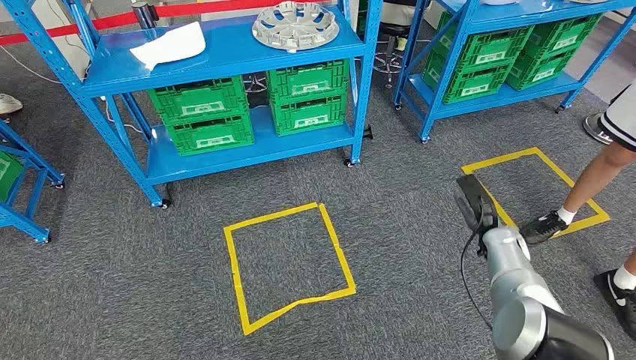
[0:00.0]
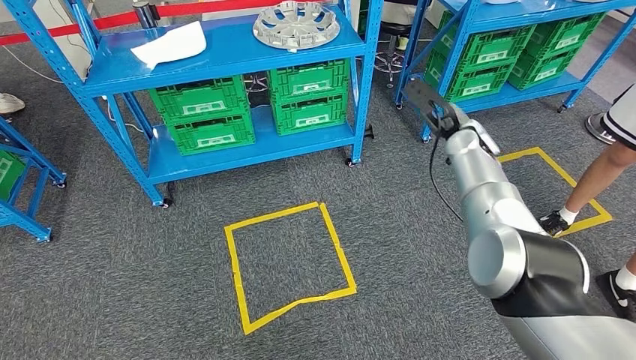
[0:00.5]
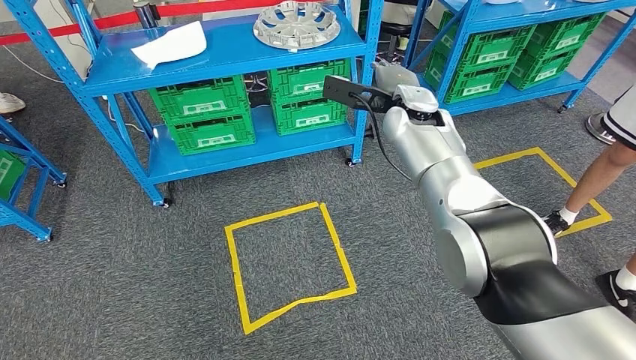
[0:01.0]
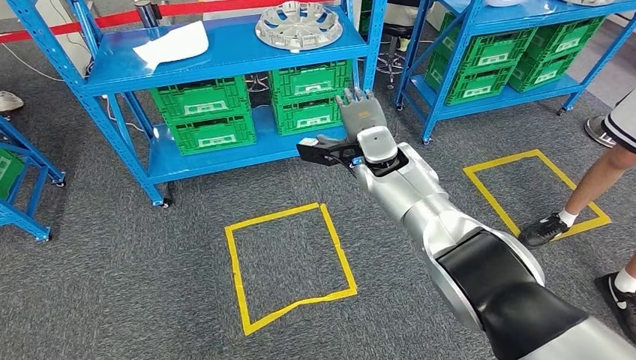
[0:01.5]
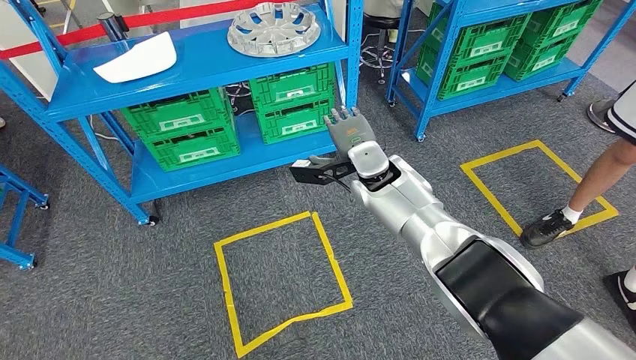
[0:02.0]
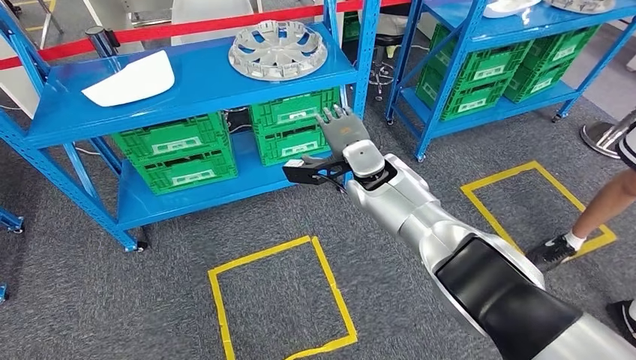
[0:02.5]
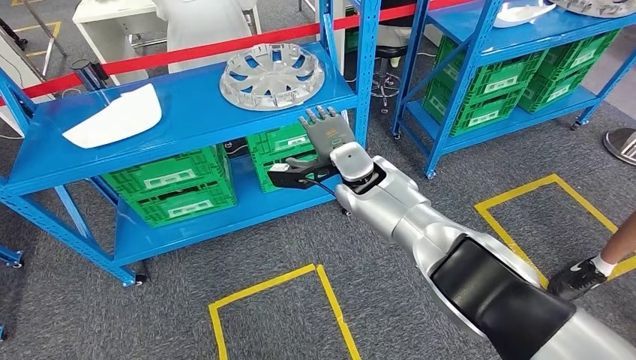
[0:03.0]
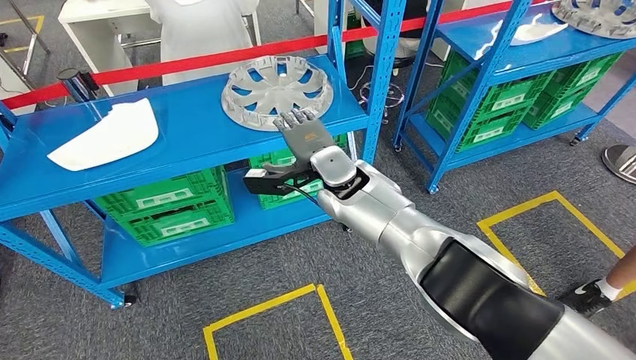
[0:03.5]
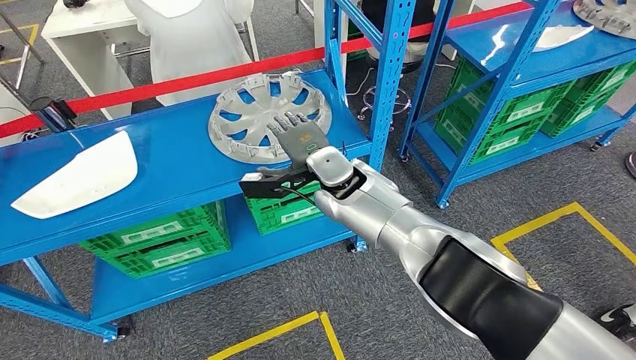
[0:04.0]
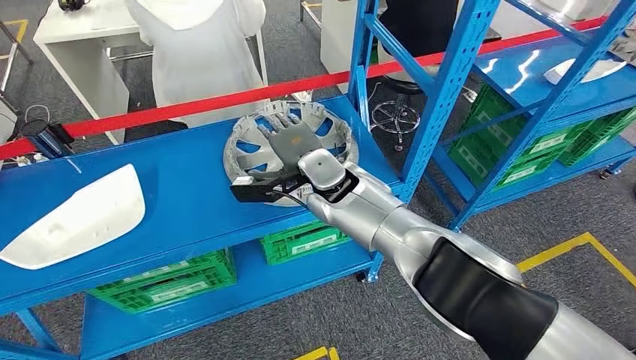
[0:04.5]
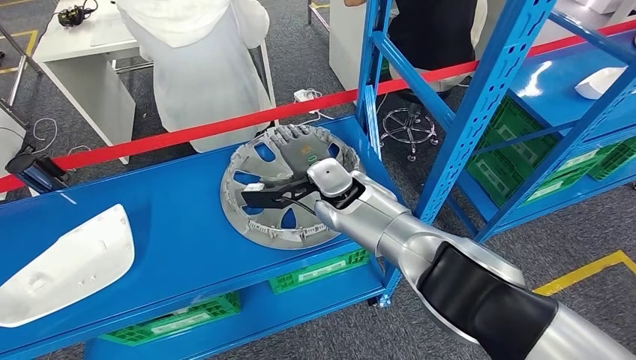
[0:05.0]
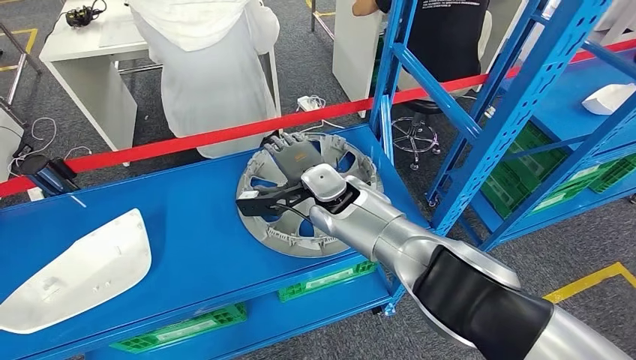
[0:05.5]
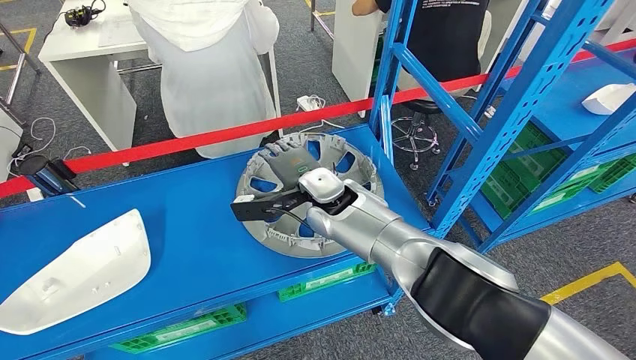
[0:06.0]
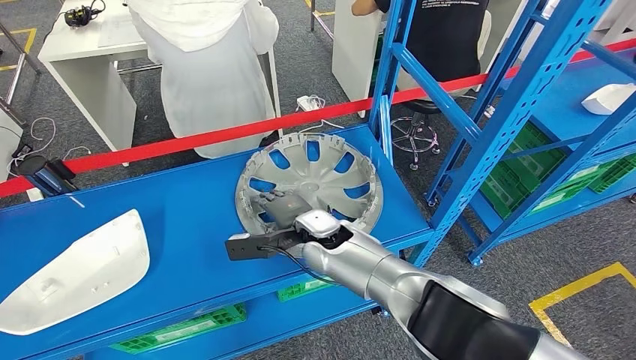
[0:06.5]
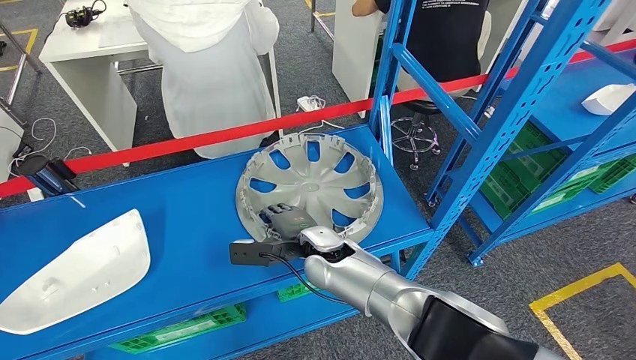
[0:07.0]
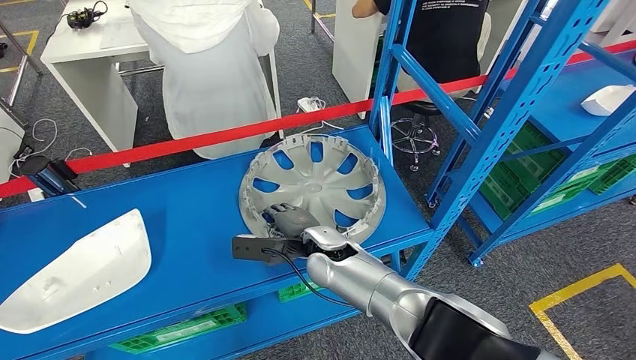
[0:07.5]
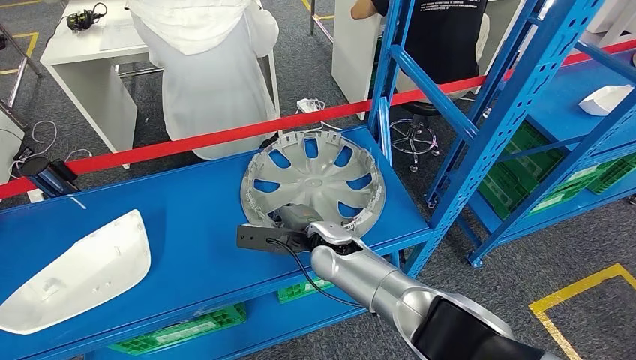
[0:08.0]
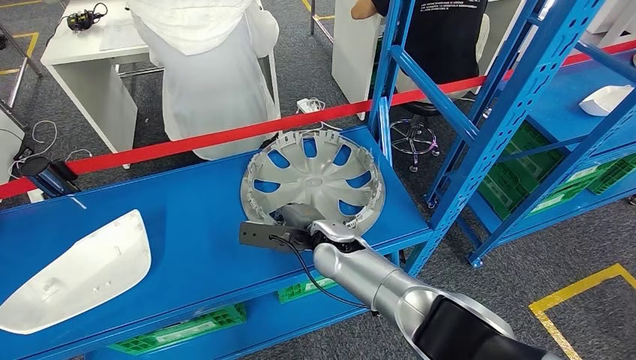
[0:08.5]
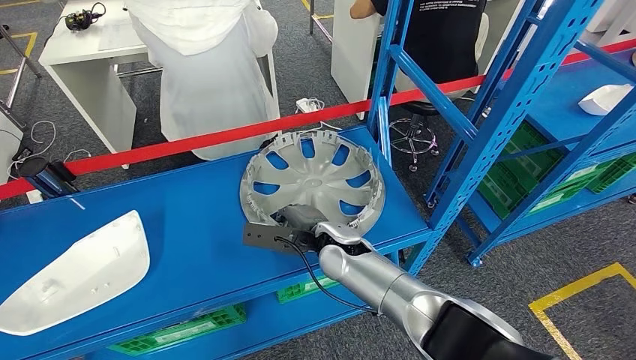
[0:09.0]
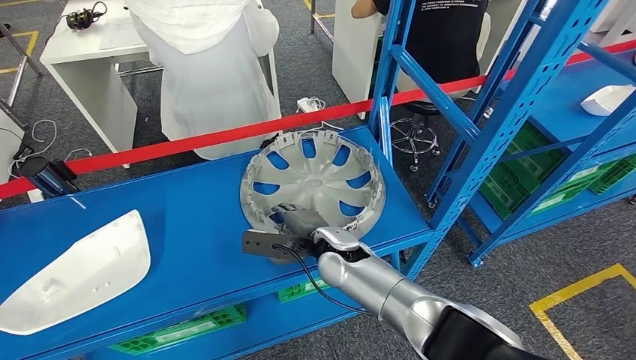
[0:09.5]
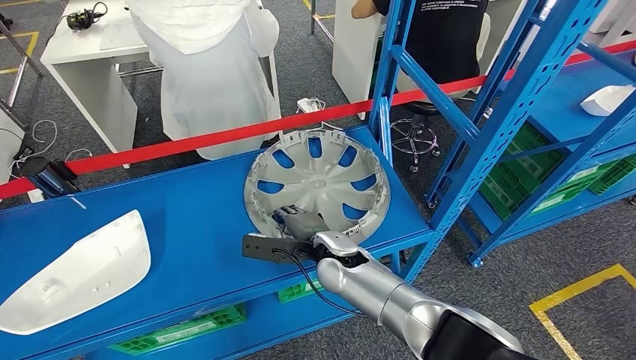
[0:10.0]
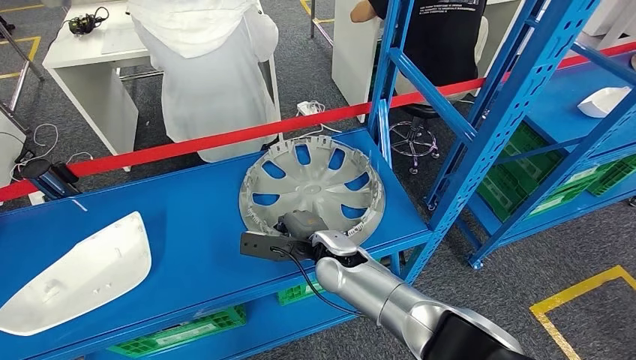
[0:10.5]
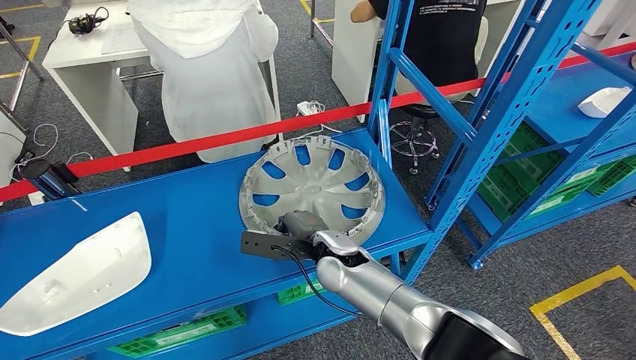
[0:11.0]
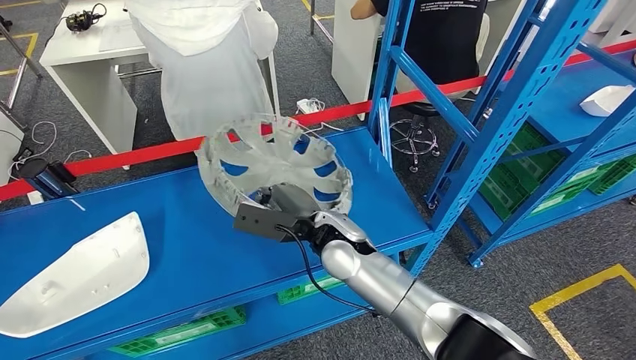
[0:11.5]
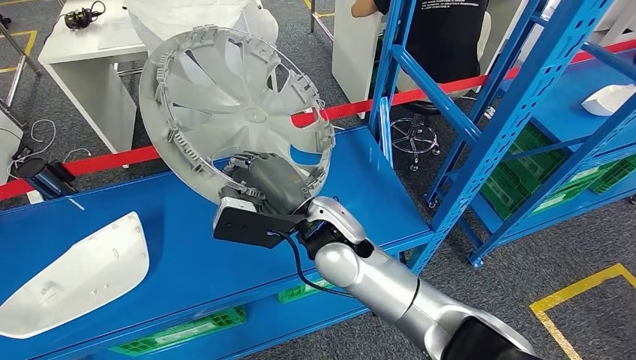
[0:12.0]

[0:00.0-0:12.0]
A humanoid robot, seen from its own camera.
0:08.0 to 0:10.0: The hands move only a little.

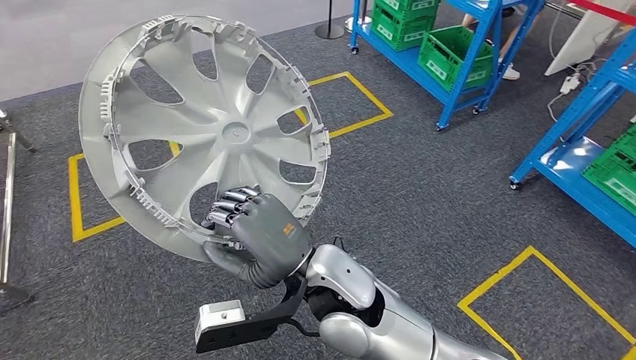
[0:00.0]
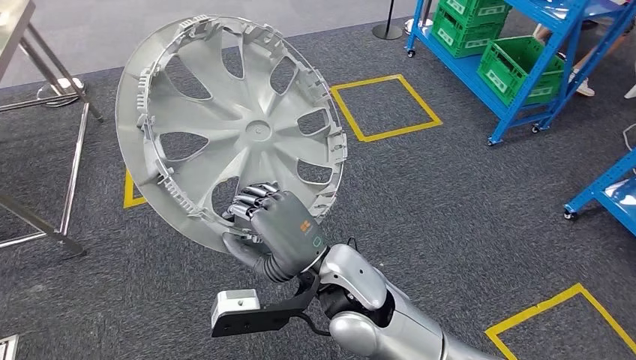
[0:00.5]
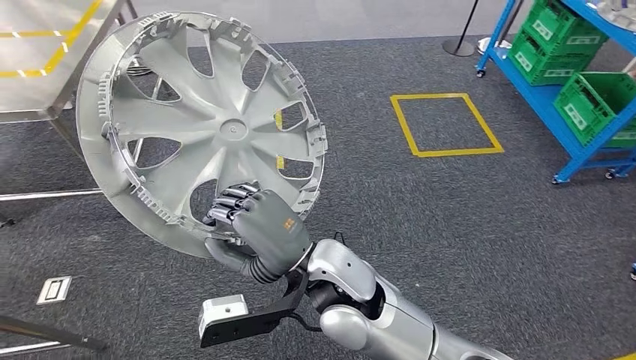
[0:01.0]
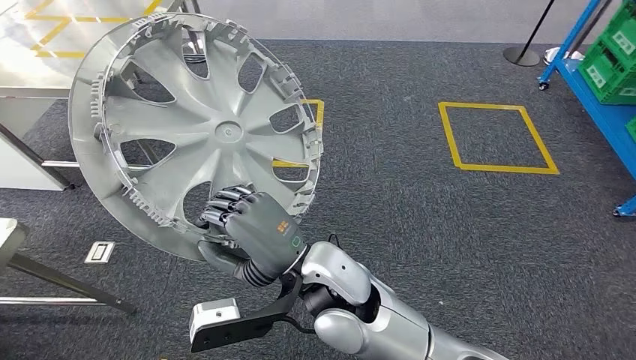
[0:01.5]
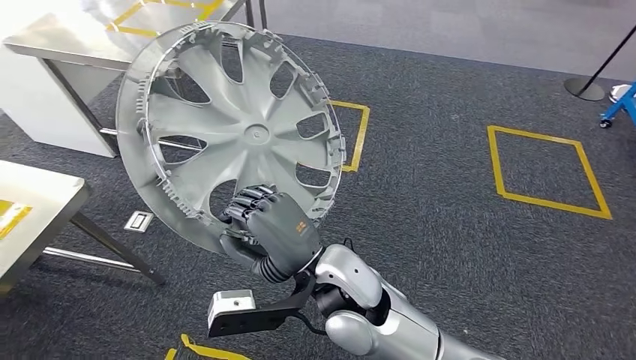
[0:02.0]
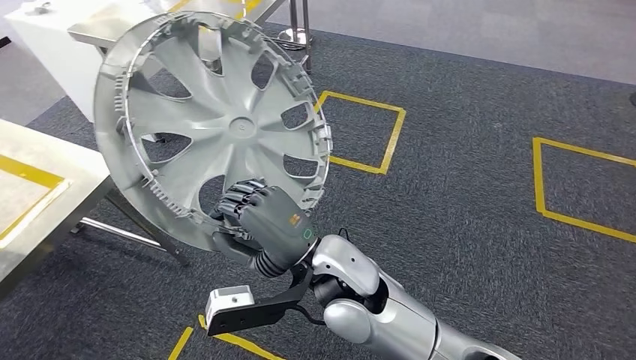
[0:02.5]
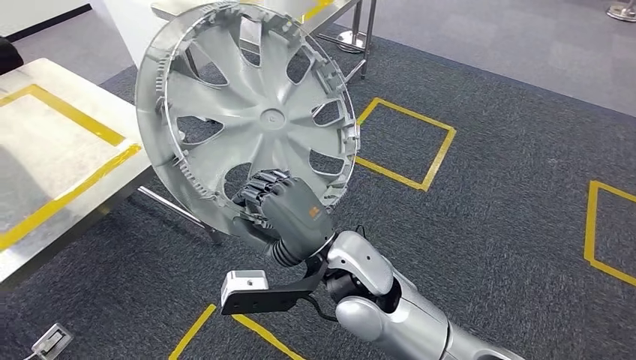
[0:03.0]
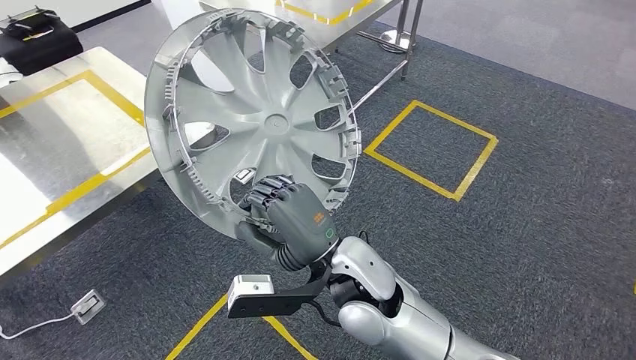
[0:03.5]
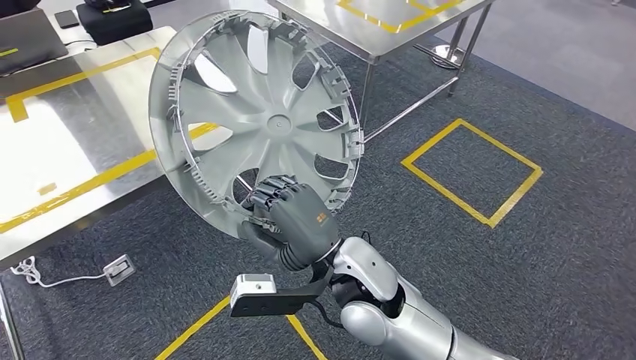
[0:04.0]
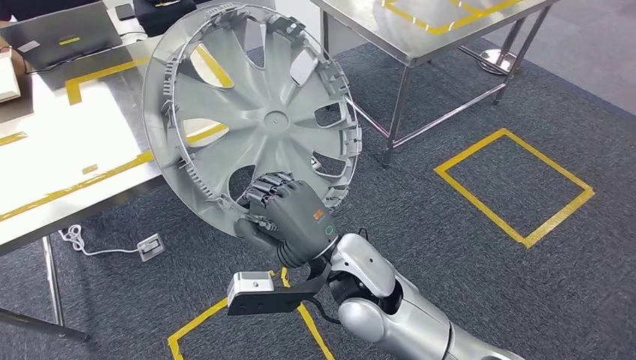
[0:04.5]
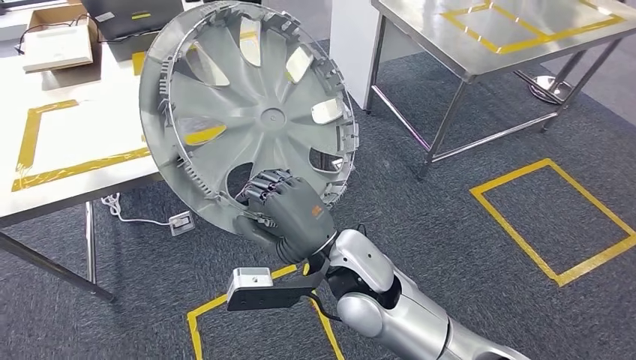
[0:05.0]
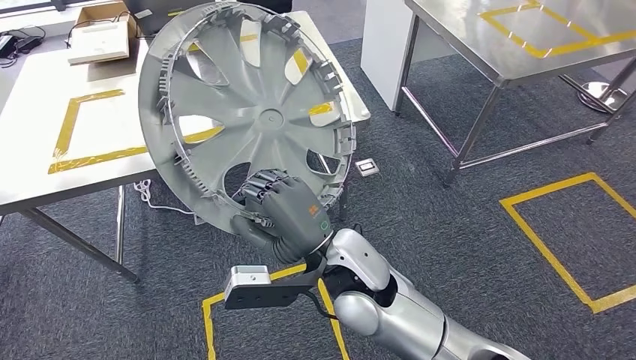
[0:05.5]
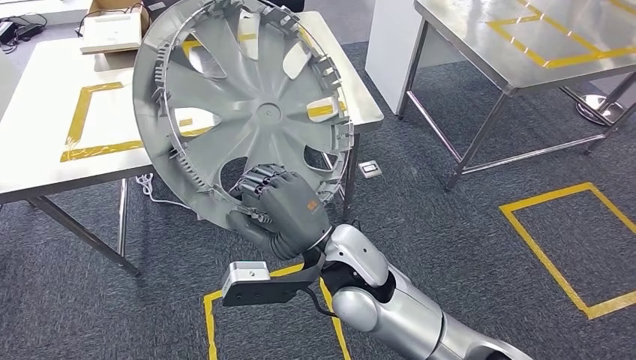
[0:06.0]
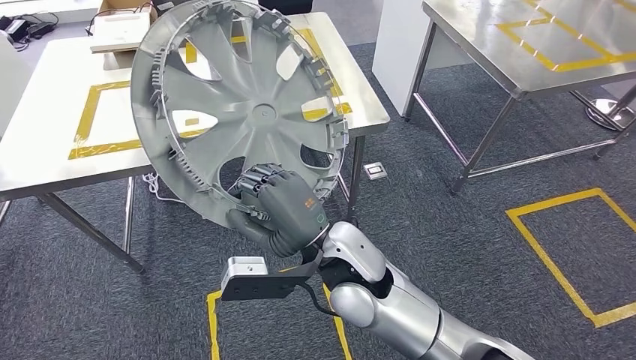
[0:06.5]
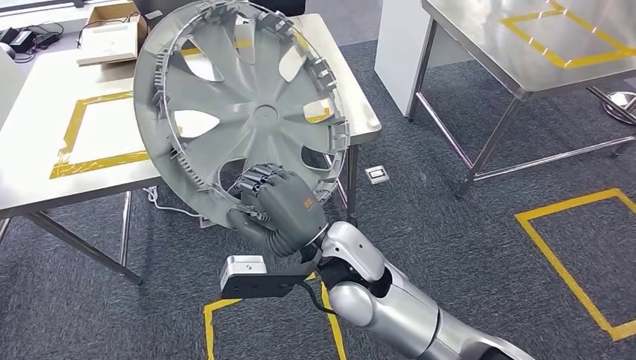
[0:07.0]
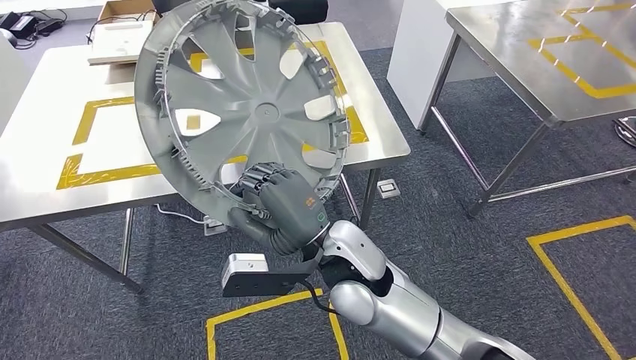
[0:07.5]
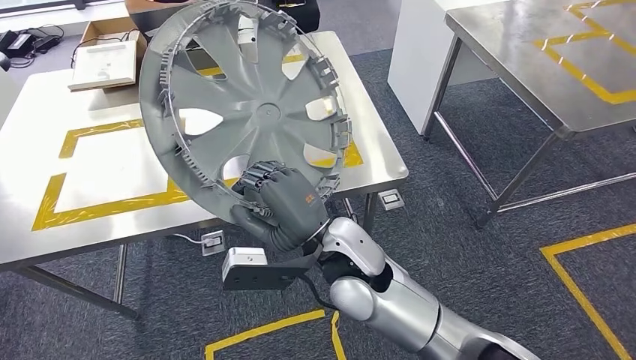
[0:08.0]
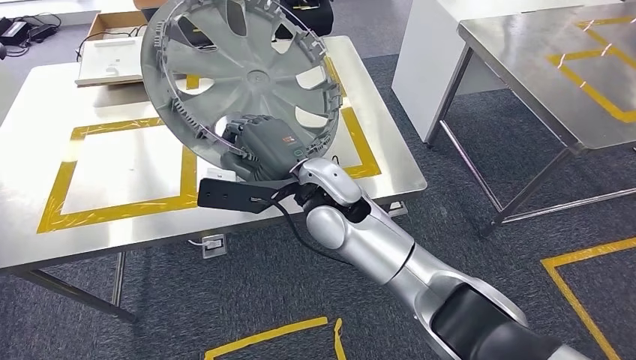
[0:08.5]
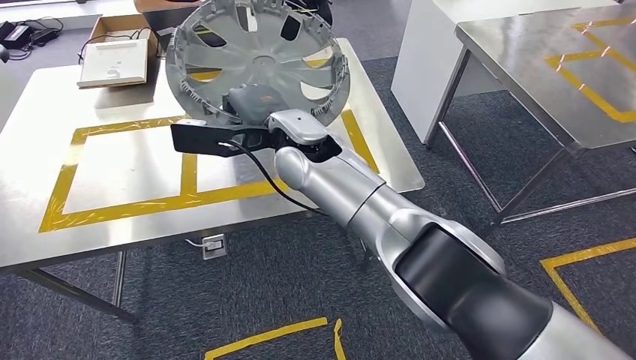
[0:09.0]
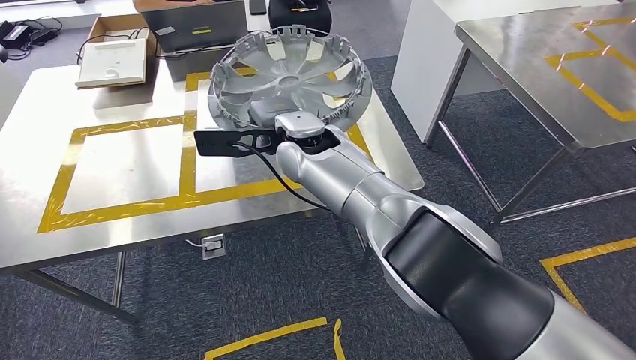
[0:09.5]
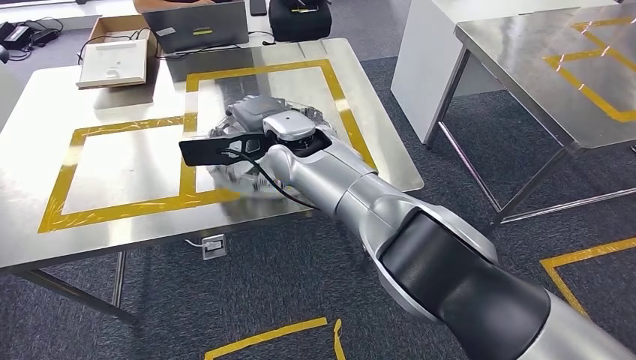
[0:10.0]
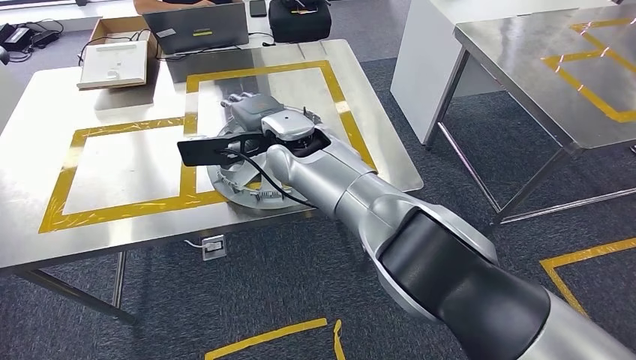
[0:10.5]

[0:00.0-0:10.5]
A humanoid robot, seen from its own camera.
Step, 0:00.0 to 0:05.0: Move the small component to the workbench.
